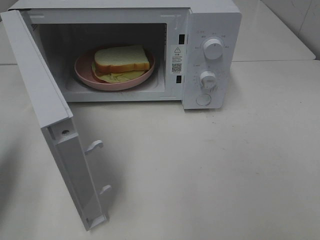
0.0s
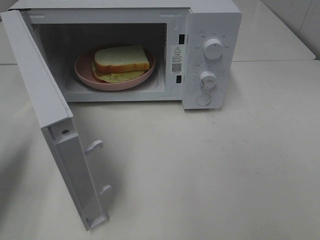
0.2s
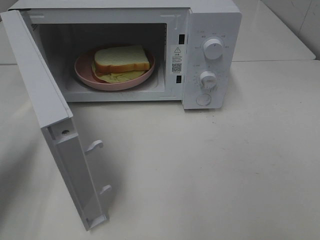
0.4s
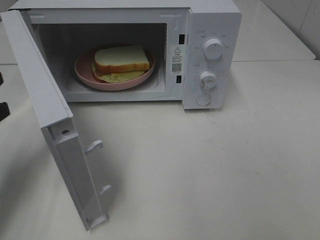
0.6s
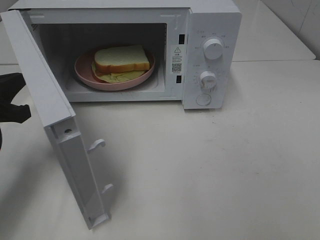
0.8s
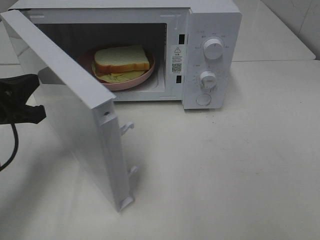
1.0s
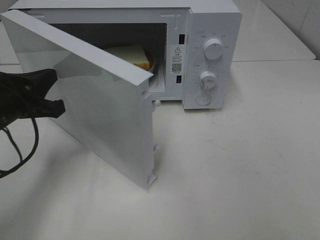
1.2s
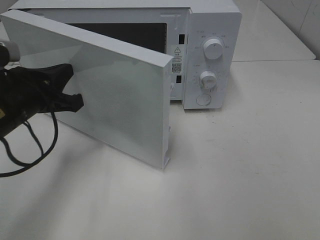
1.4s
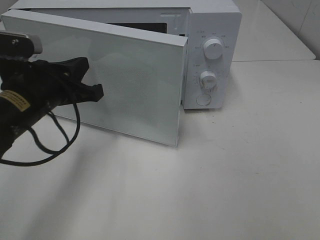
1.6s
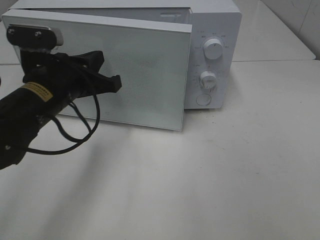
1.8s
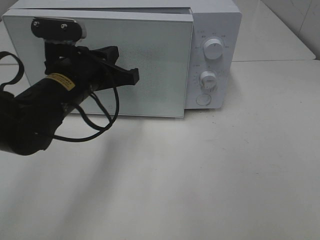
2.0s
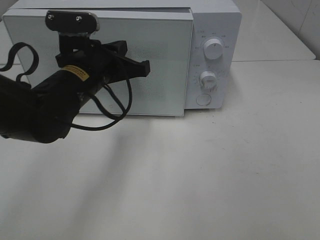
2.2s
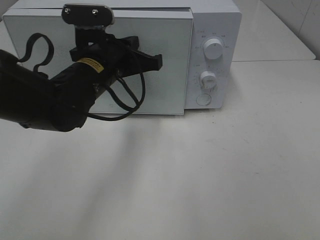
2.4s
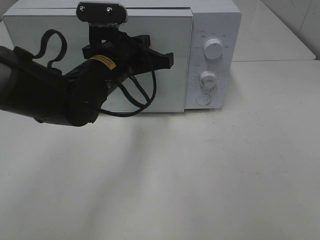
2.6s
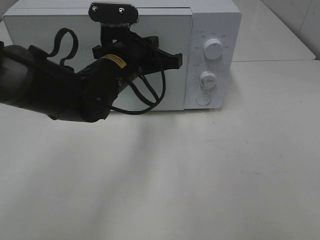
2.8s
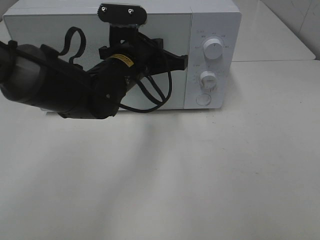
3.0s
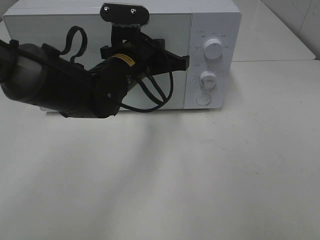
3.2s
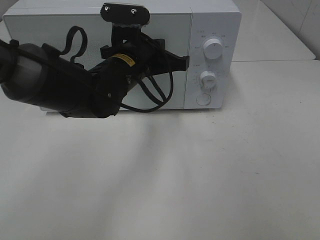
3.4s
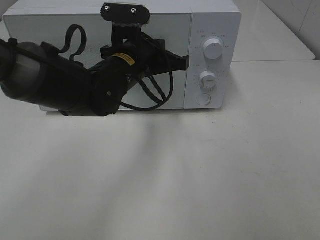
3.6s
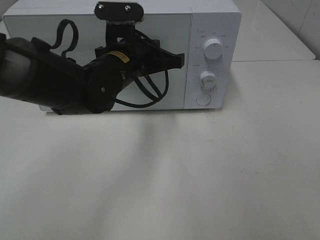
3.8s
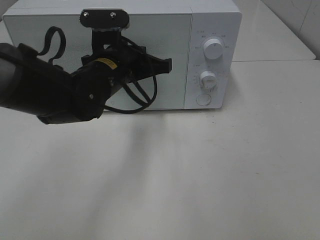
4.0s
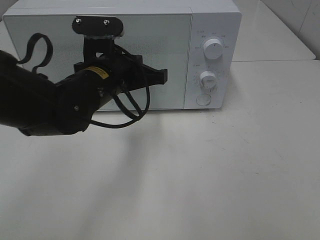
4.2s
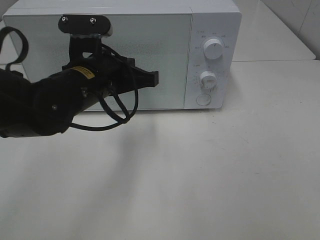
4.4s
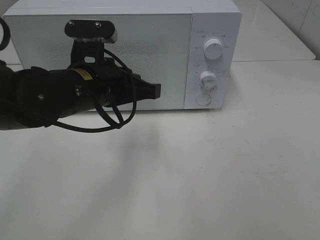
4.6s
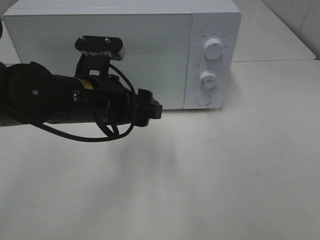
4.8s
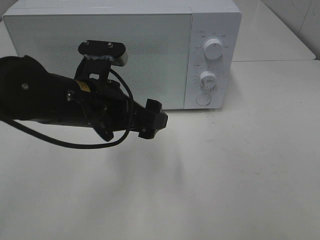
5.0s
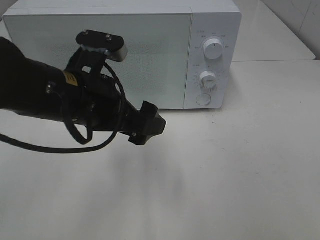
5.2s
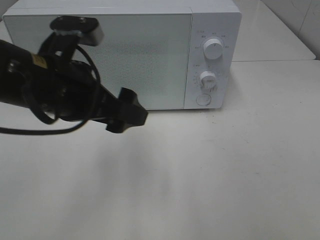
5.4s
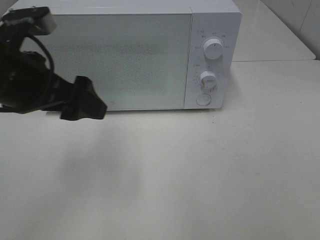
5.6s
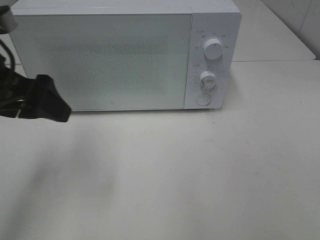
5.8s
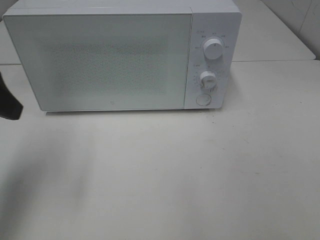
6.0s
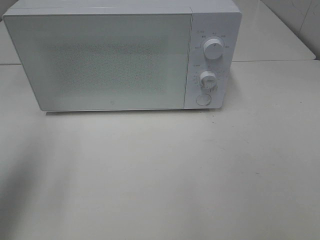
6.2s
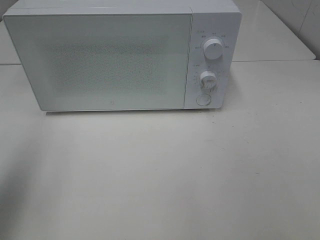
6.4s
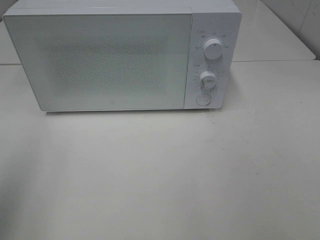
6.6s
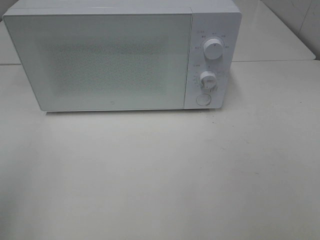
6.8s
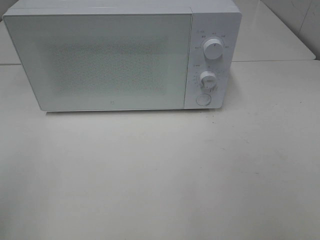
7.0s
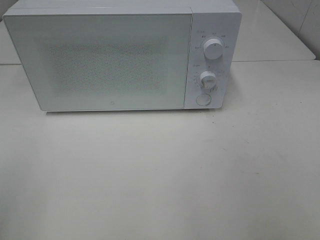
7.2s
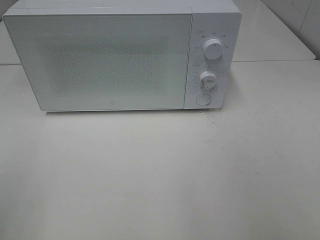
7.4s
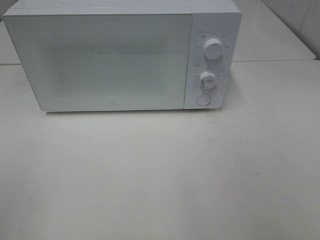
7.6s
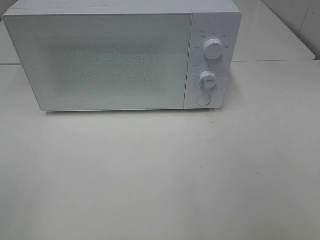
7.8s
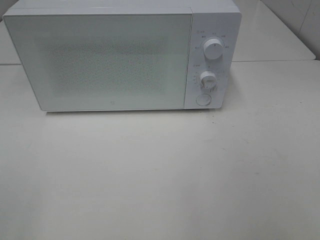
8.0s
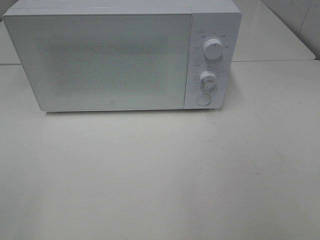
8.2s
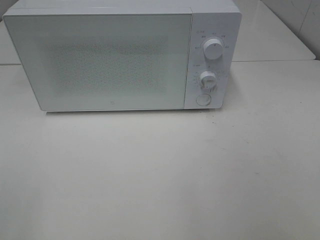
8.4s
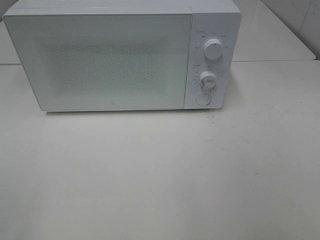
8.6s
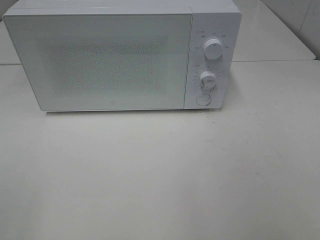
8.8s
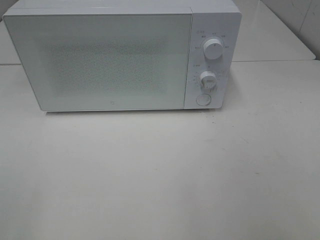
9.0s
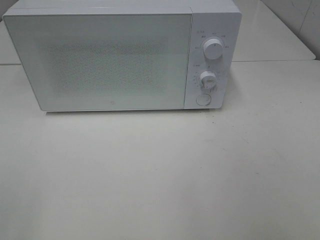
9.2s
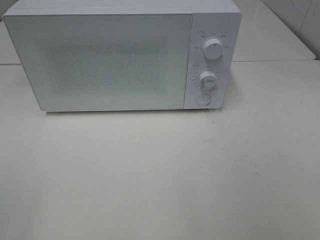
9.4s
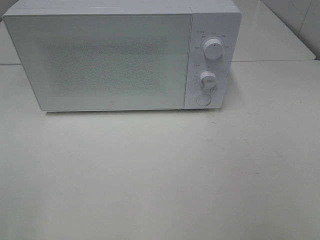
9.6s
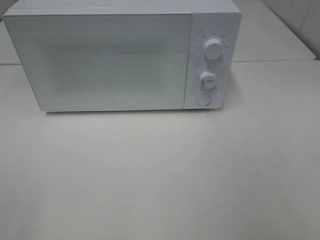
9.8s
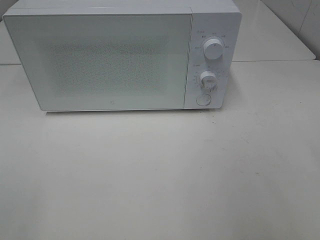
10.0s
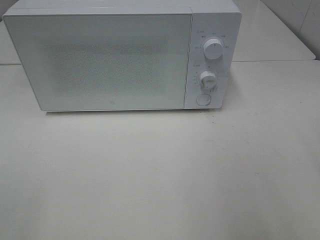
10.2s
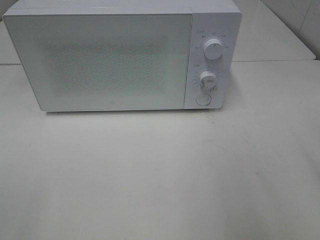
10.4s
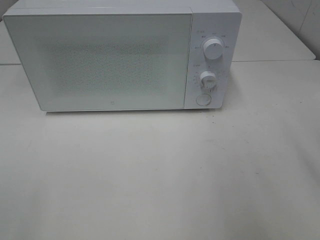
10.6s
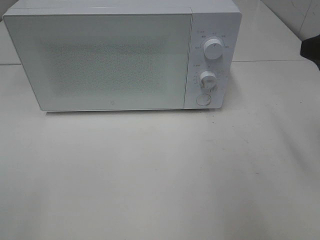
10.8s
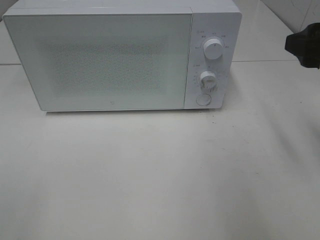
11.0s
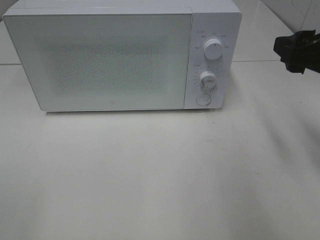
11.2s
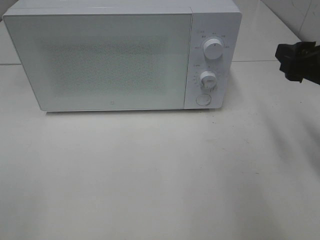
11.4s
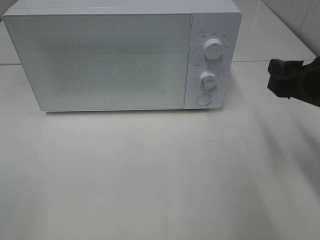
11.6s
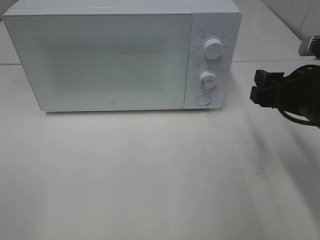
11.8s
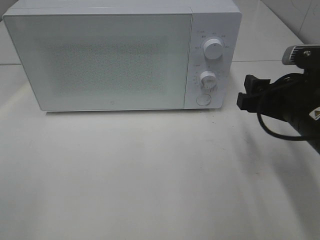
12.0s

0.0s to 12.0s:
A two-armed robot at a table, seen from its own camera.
Task of the whole recording: Heat Sandwich.
Step, 0.0s to 4.2s: Left hand: close the microwave door.
0.0s to 1.6s: The left gripper moves to the right and forward, some 20 cm.
1.6s to 3.0s: The left gripper travels to the right and forward by some 15 cm.
3.0s to 4.4s: The left gripper heads backward, covering some 5 cm.
4.4s to 6.0s: The left gripper heads to the left and upward, covering some 20 cm, and opens up.
6.0s to 7.6s: The left gripper goes about 20 cm backward.
10.4s to 12.0s: The right gripper travels downward, forward and to the left by roughly 15 cm.

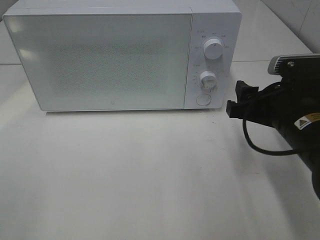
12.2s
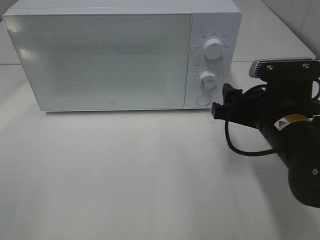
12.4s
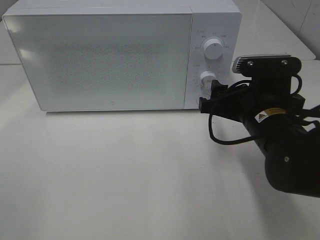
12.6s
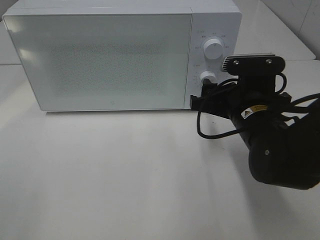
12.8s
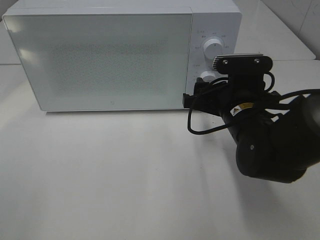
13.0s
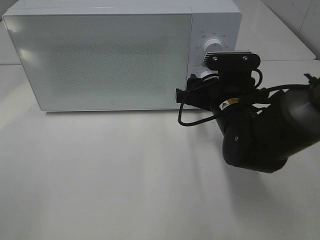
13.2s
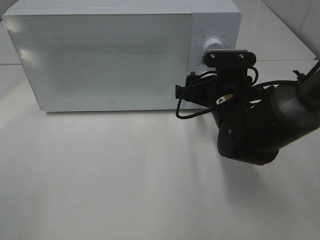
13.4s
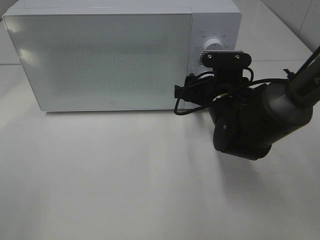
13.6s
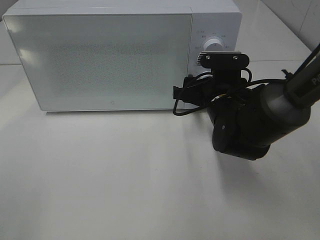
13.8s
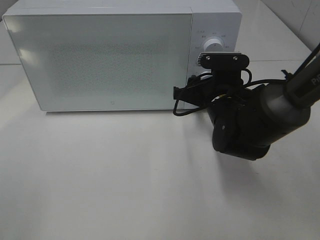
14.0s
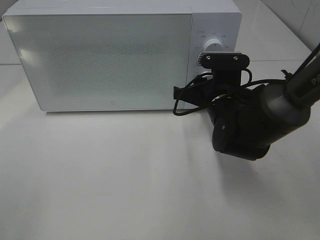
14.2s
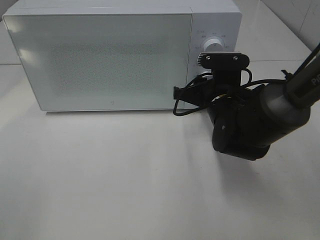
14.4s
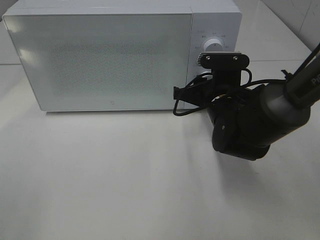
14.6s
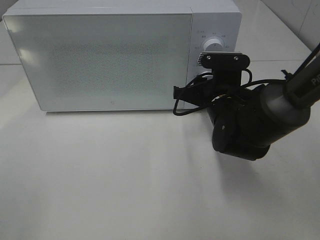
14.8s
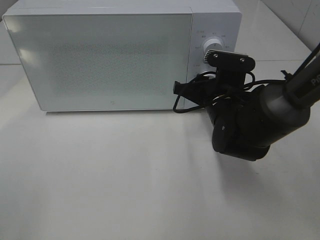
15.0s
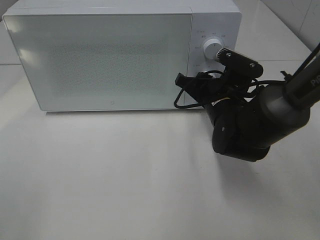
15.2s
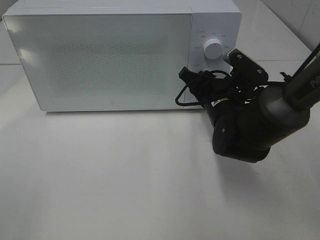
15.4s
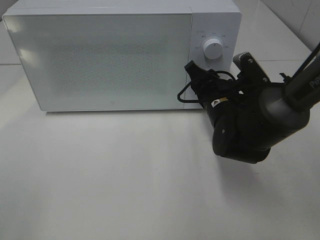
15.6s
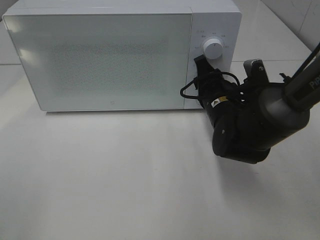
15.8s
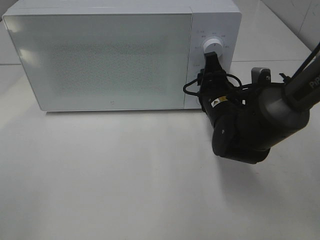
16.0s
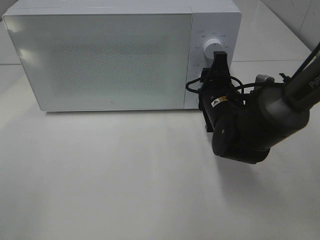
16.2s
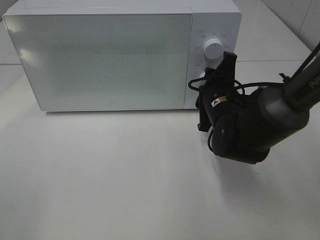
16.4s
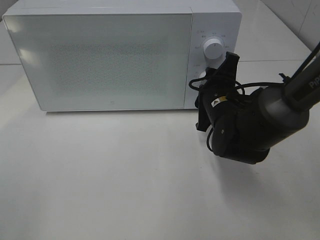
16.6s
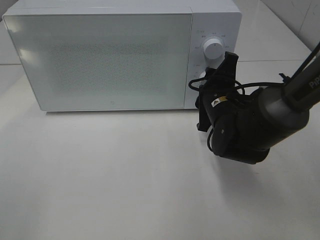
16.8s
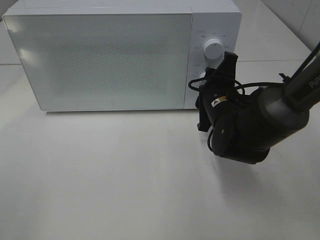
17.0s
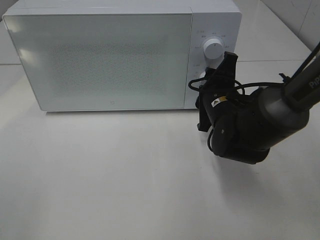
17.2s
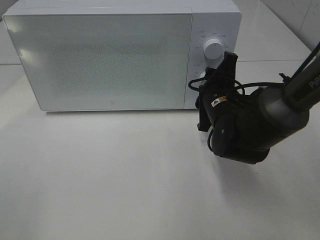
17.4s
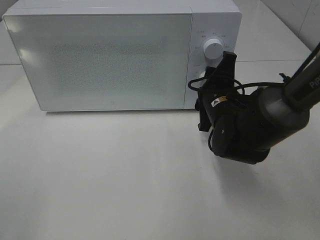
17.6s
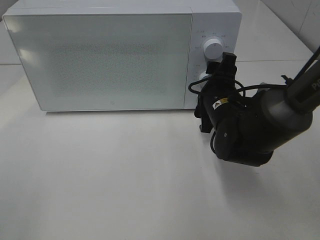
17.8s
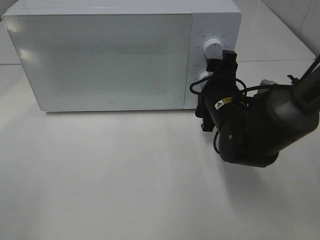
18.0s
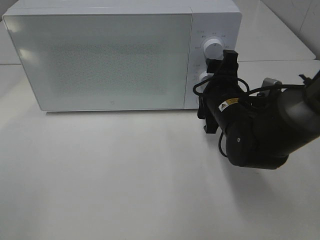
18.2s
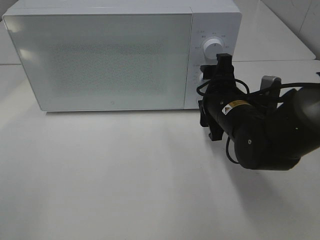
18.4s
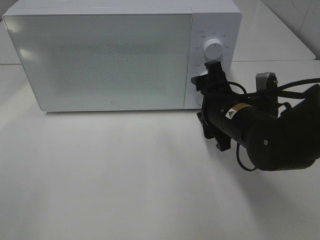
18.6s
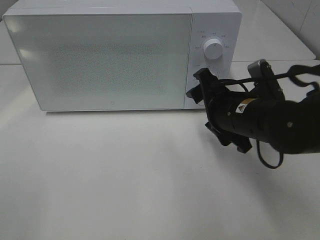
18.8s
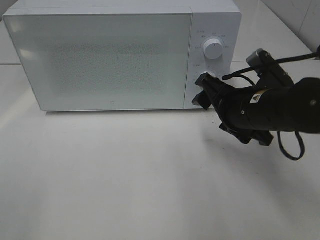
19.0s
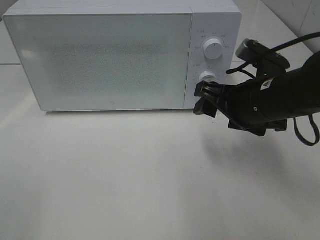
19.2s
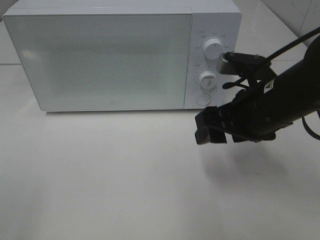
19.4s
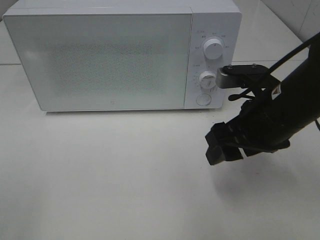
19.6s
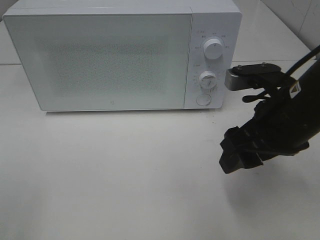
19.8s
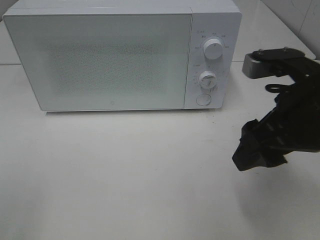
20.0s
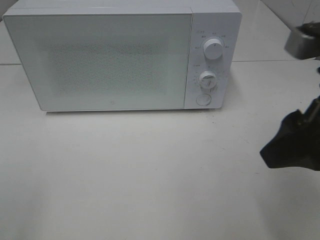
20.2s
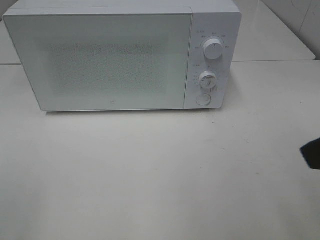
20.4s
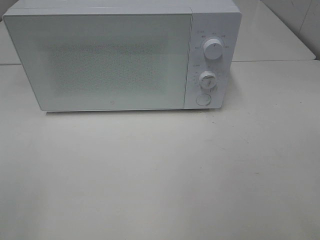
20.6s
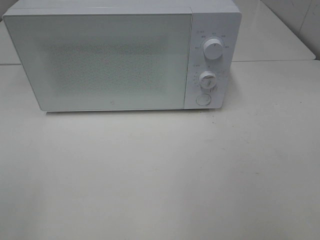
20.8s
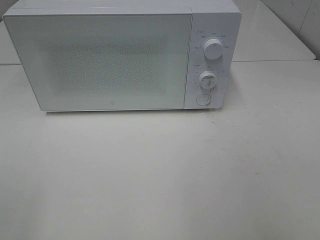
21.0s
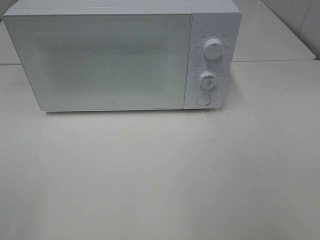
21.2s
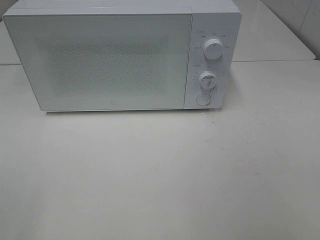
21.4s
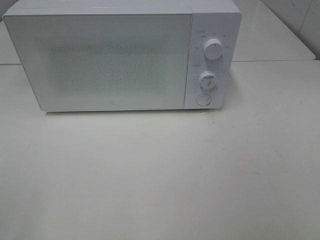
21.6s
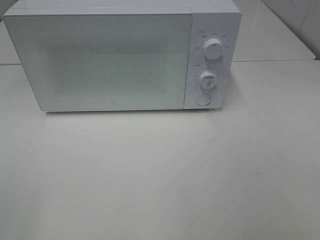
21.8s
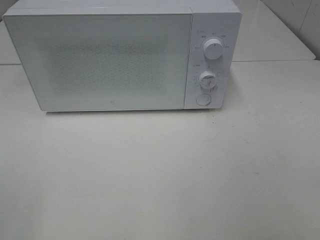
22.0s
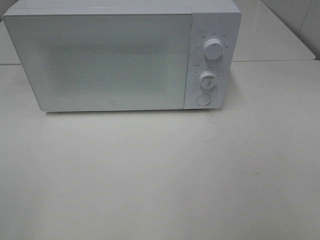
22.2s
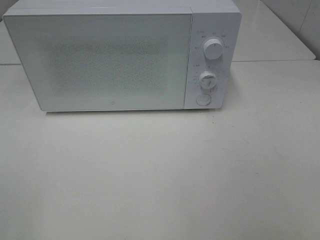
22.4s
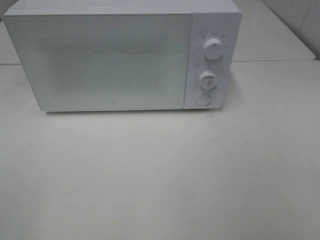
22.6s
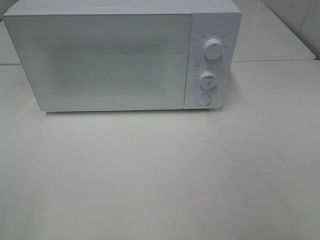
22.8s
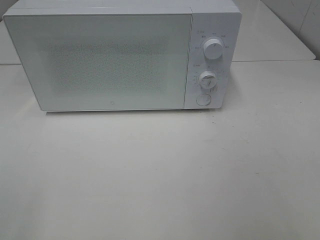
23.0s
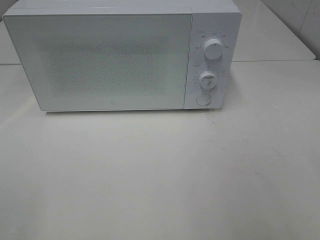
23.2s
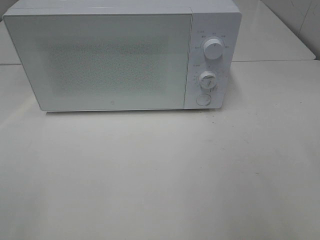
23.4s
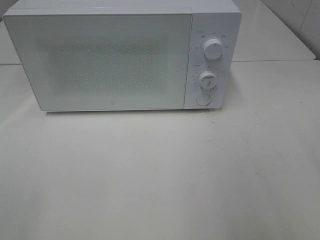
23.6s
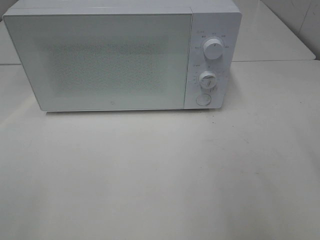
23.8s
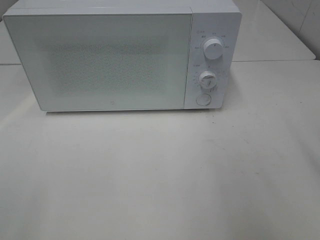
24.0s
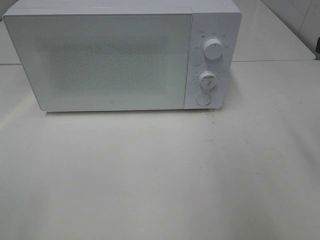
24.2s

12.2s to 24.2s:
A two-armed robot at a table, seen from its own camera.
Task of the whole recording: Heat Sandwich.
Step, 12.2s to 18.8s: Right hand: twist timer button.
12.2s to 13.8s: The right gripper is displaced forward, to the left and downward by roughly 15 cm.
13.8s to 15.2s: The right gripper closes its fingers.
16.6s to 18.2s: The right gripper opens.
18.2s to 19.8s: The right gripper travels backward and upward by approximately 10 cm.
19.8s to 21.2s: The right gripper is displaced backward, to the right and upward by some 30 cm.
